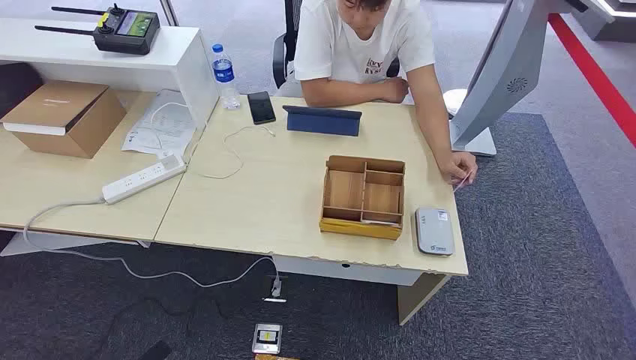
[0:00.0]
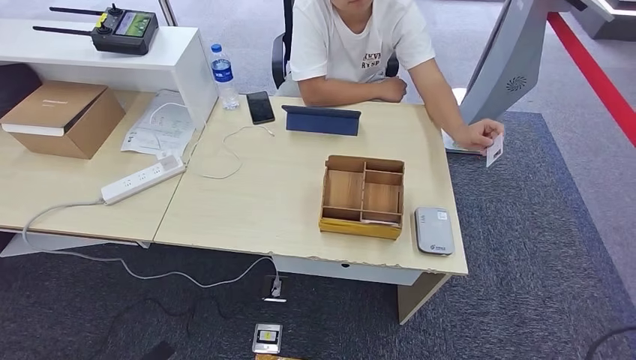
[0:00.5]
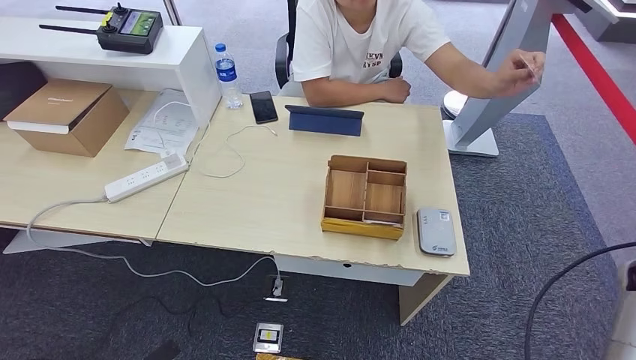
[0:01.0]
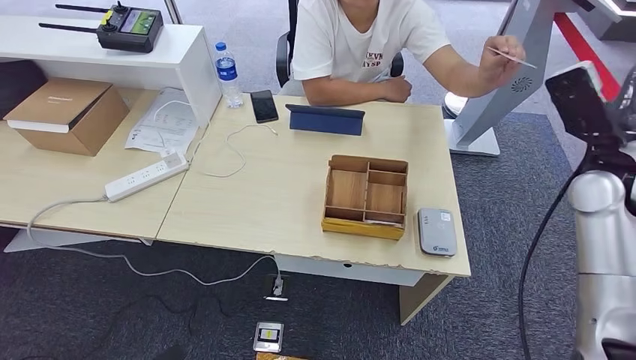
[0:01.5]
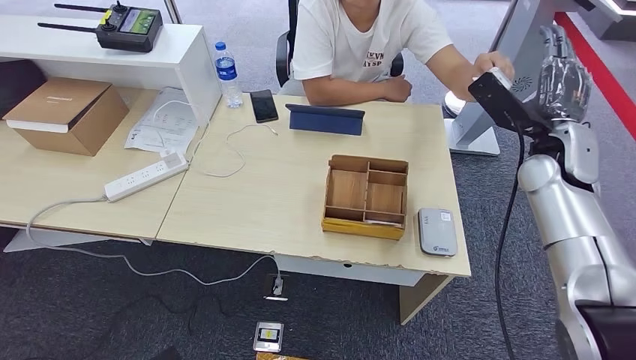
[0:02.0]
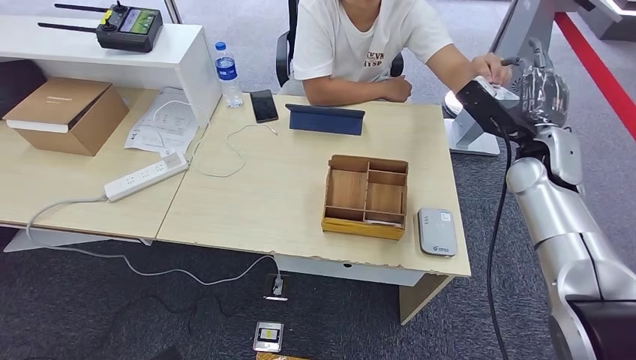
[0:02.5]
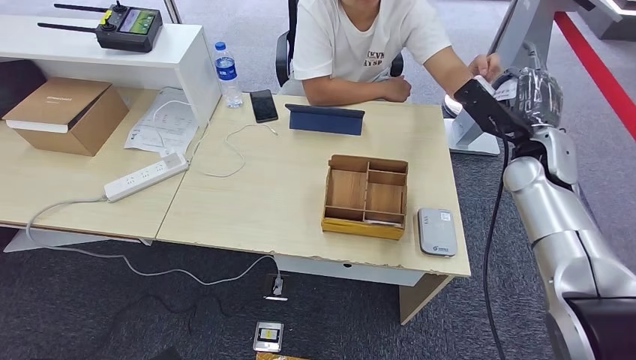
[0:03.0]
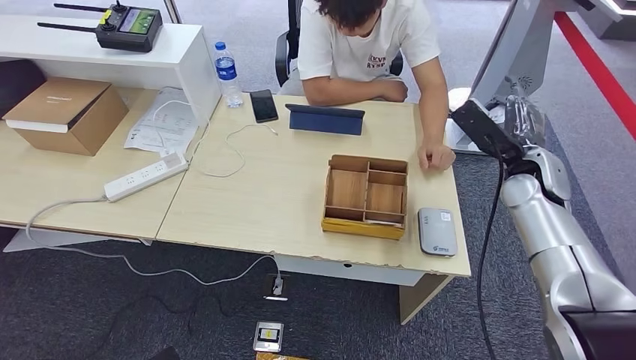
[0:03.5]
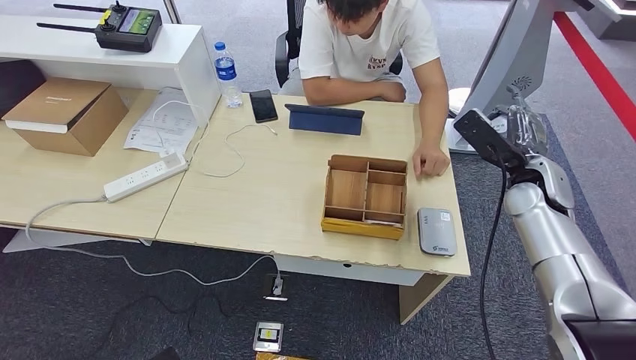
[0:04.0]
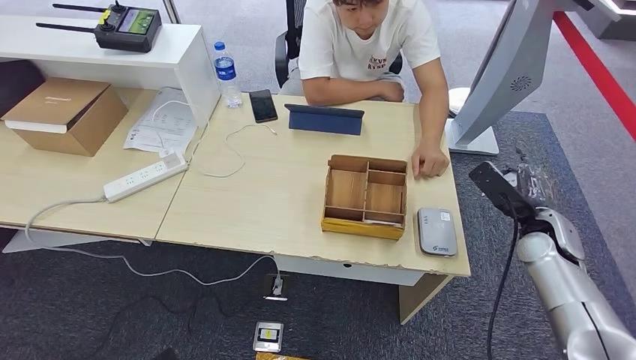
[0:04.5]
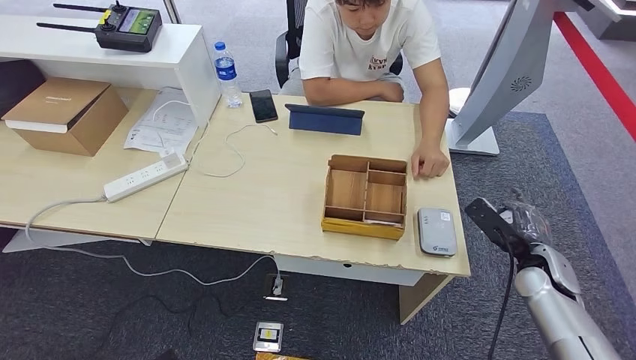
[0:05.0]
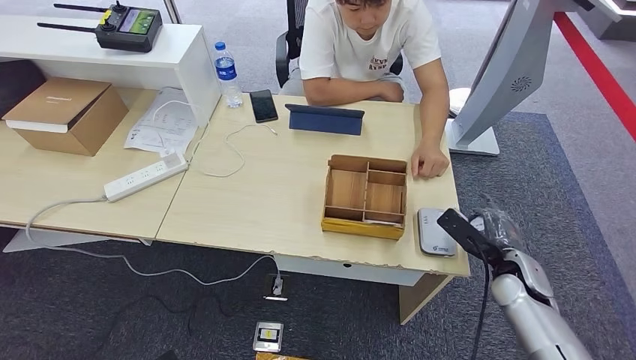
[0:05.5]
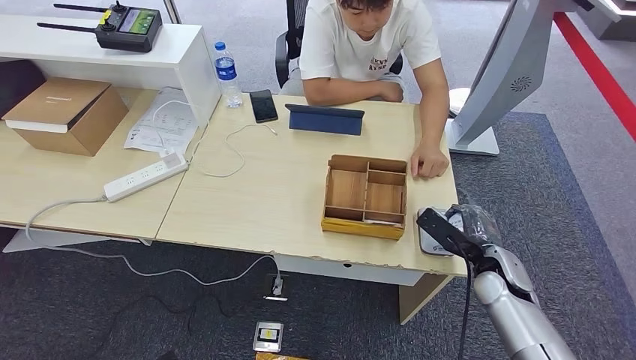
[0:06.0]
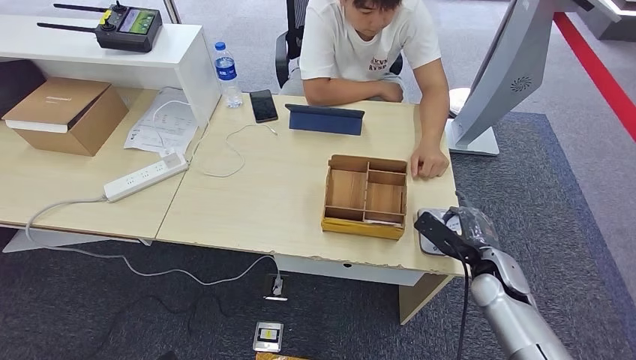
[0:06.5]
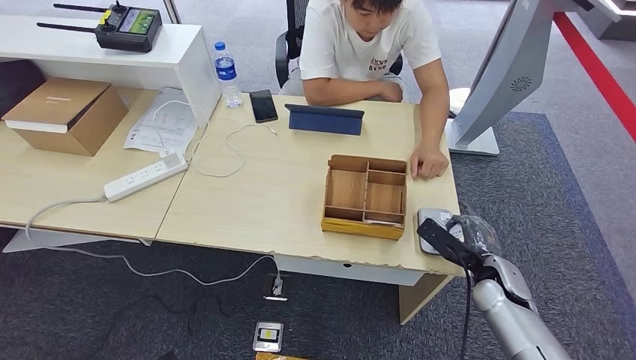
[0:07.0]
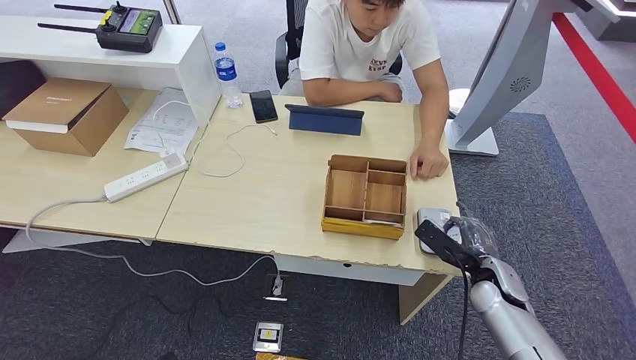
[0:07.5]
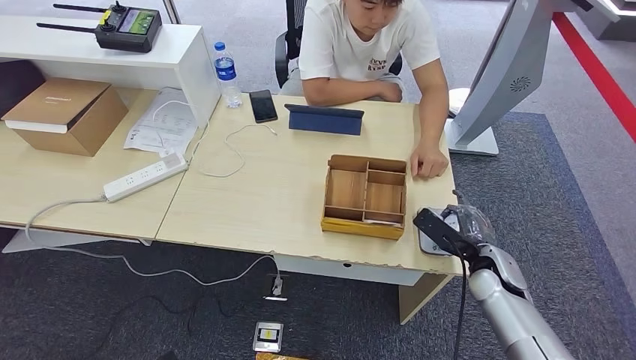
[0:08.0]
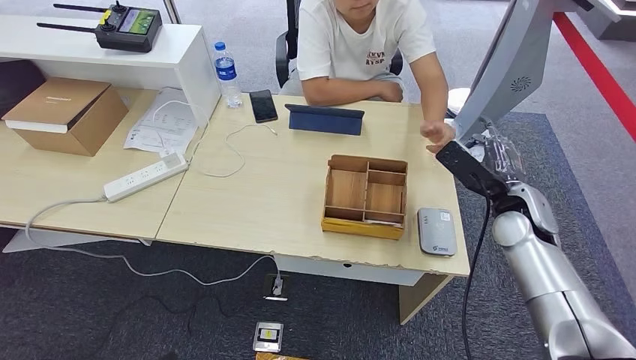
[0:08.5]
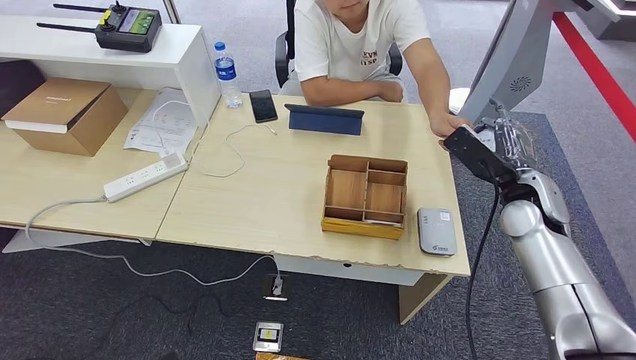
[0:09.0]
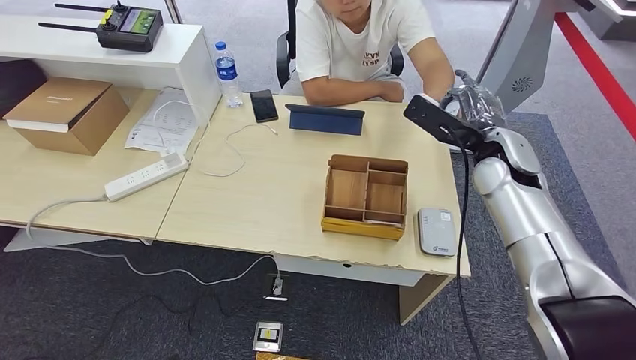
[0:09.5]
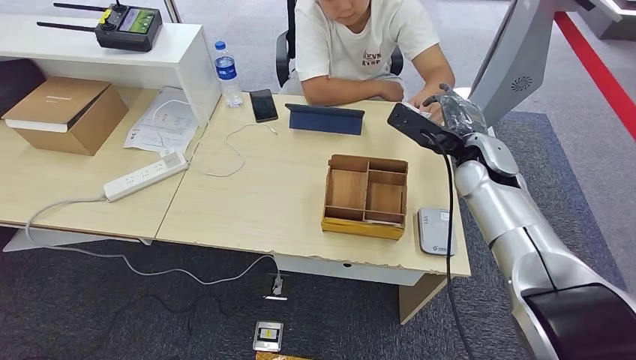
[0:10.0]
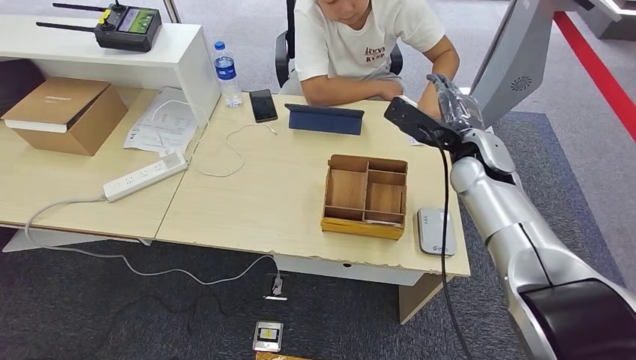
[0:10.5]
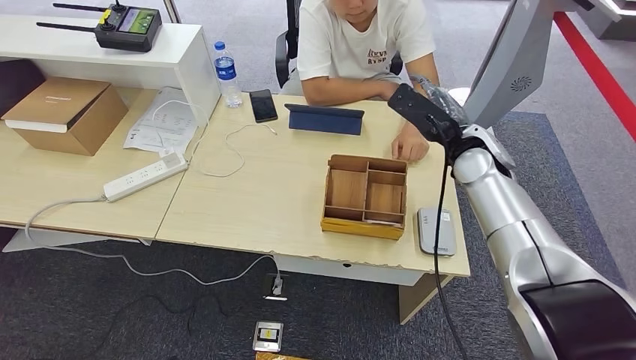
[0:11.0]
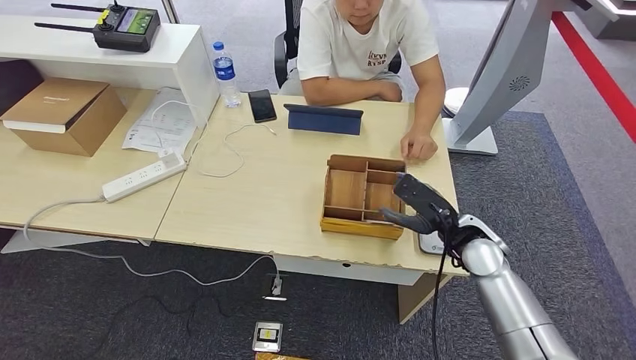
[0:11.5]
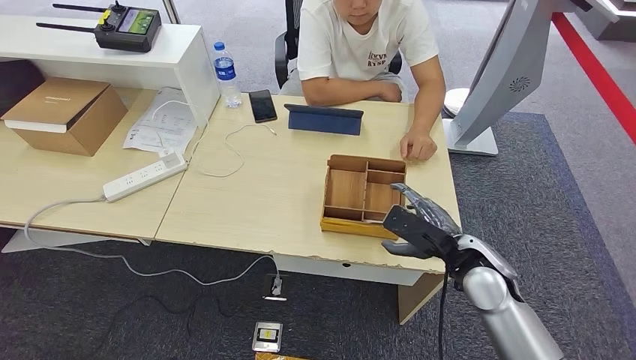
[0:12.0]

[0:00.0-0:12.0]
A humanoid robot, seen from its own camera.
Step, 0:00.0 to 0:03.0: Take the ID card from the person's hand.
Step, 0:03.5 to 0:06.5: Place the ID card on the card reader.
Step, 0:07.0 to 0:10.0: Hand the ID card to the person.
0:02.0 to 0:04.0: The right hand heads downward, covering about 5 cm.
0:04.0 to 0:06.0: The right hand travels downward and backward by approximately 20 cm.
0:06.0 to 0:08.0: The hands stay close to where they were, moving slightly.
0:08.0 to 0:10.0: The right hand shifts approximately 25 cm upward, forward and to the left.
0:10.0 to 0:12.0: The right hand travels backward and downward by some 15 cm.

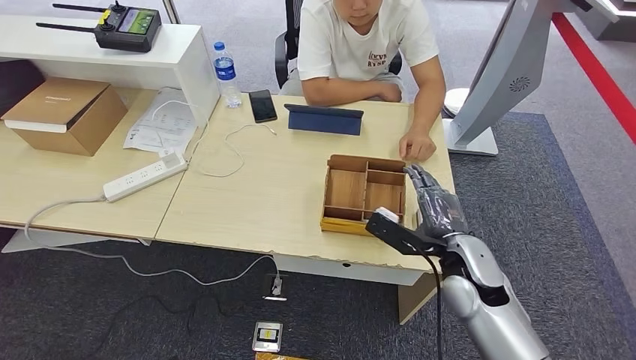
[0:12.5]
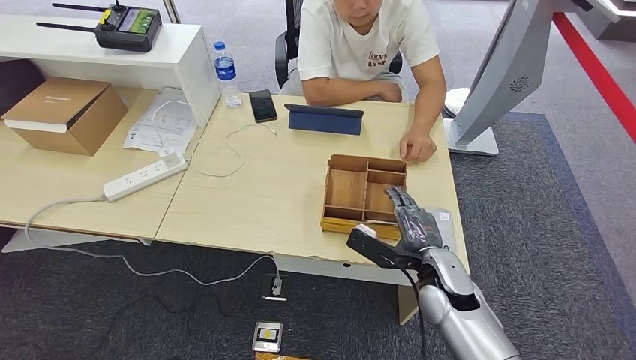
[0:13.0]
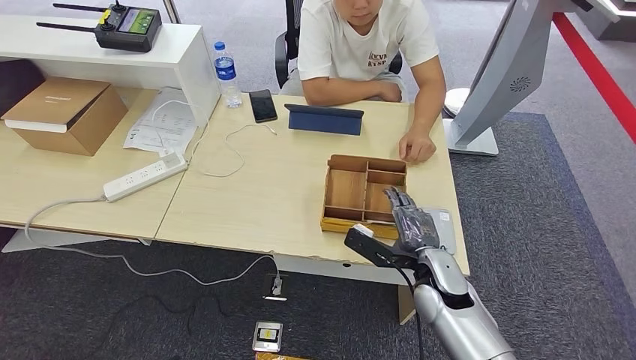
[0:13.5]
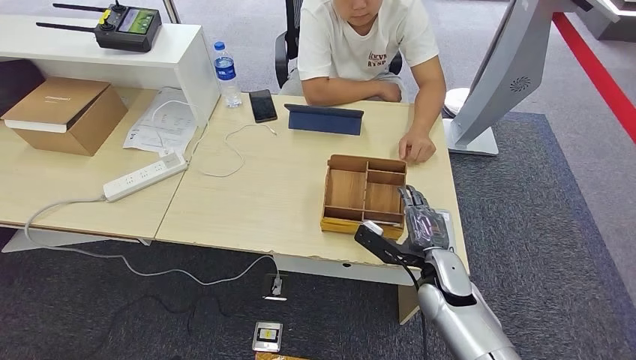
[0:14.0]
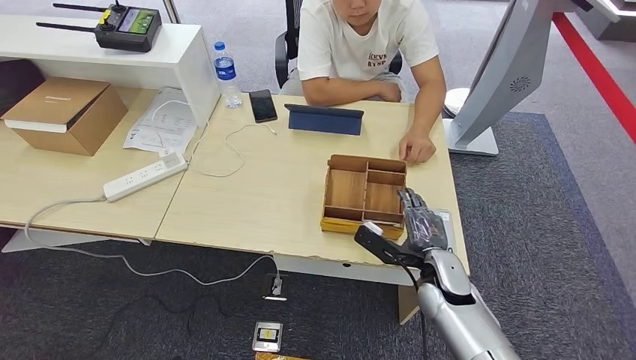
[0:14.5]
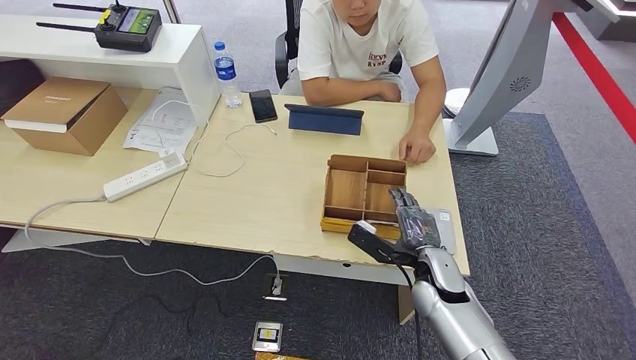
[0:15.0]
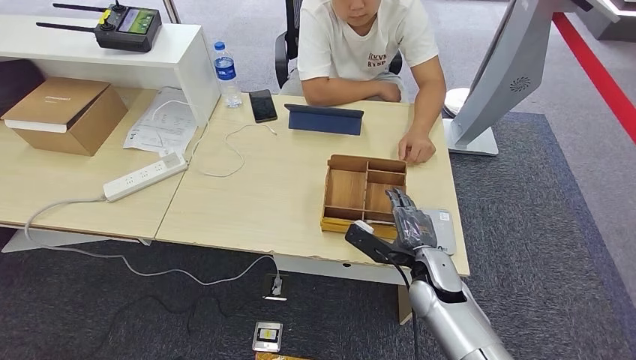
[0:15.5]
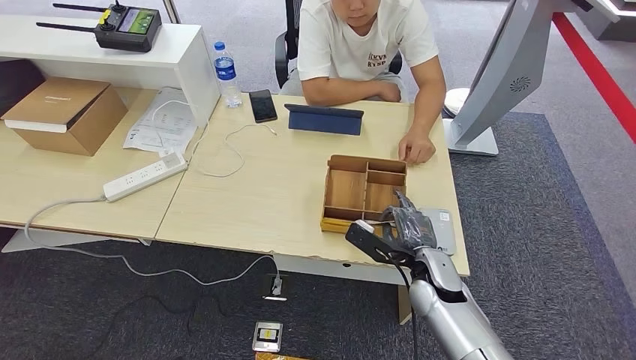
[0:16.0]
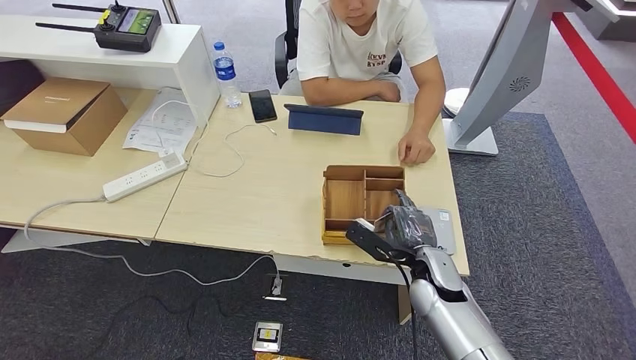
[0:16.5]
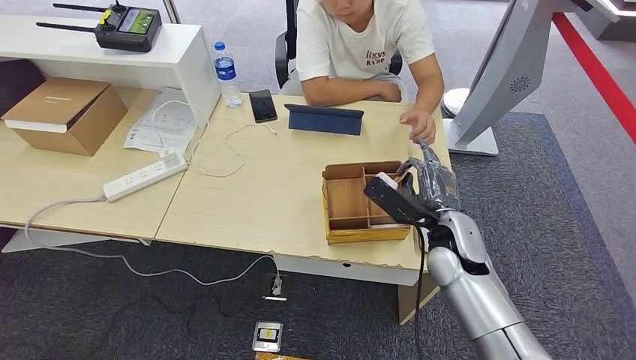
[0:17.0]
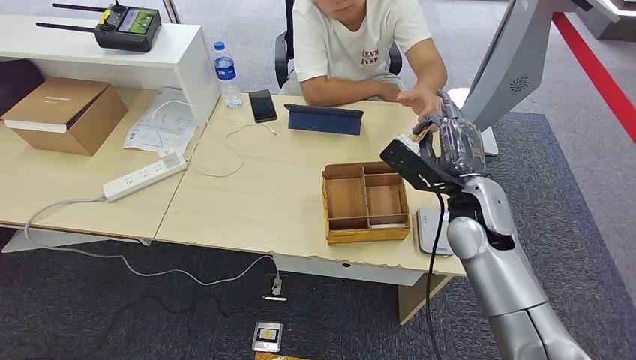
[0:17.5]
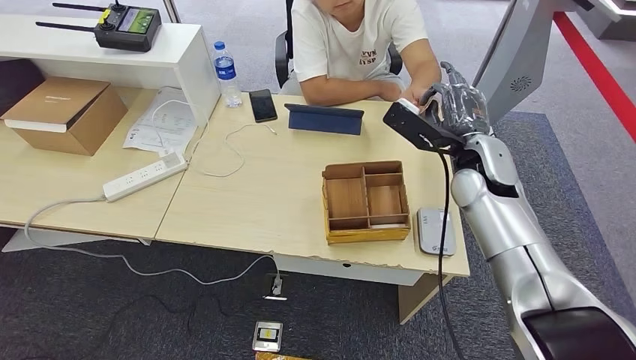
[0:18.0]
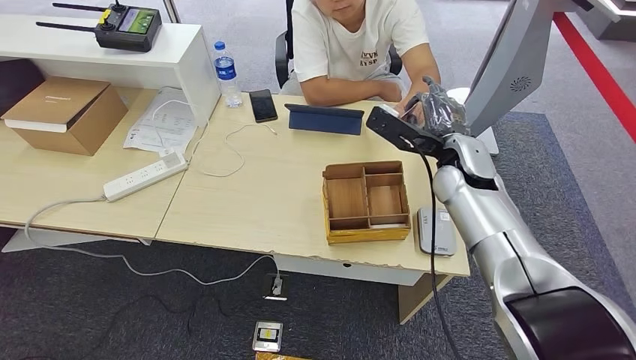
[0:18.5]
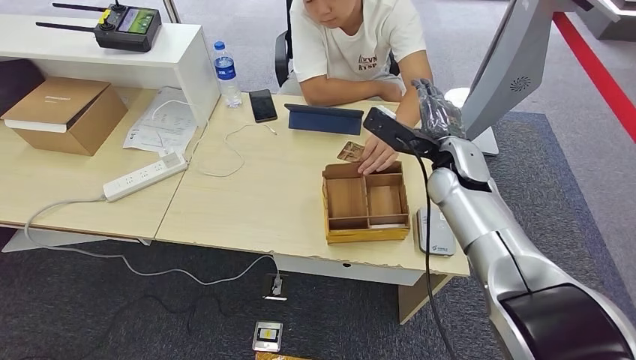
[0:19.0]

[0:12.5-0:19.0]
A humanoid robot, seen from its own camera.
Step, 0:12.5 to 0:16.5: Pick up the room key from the key card box.
Step, 0:17.5 to 0:19.0: Hand the room key to the person.
0:12.5 to 0:14.5: The right hand travels downward by some 5 cm.
0:14.5 to 0:17.0: The right hand travels upward by about 10 cm.
0:17.0 to 0:19.0: The right hand travels forward and upward by some 10 cm.
